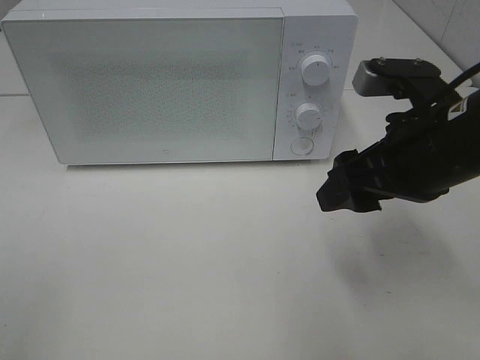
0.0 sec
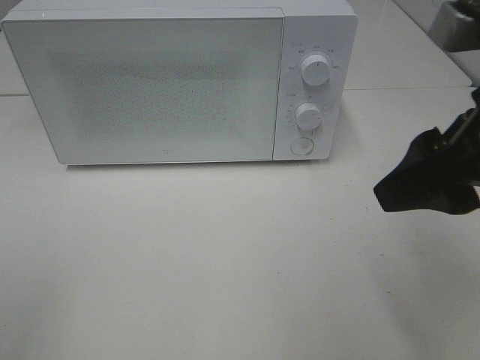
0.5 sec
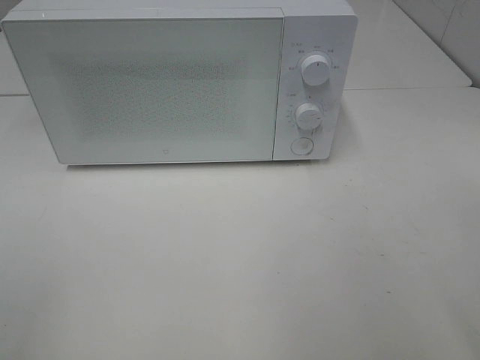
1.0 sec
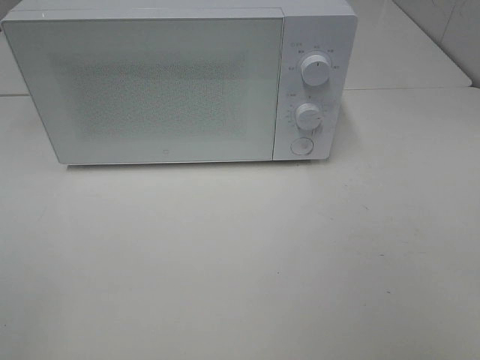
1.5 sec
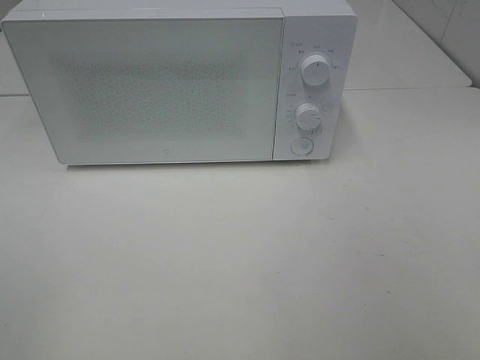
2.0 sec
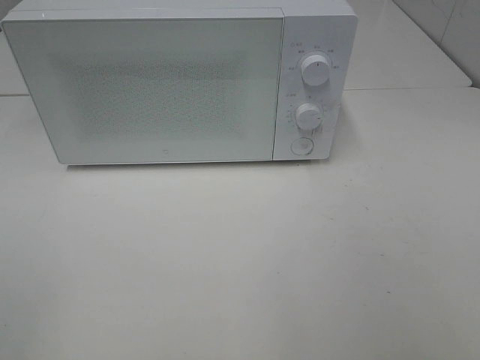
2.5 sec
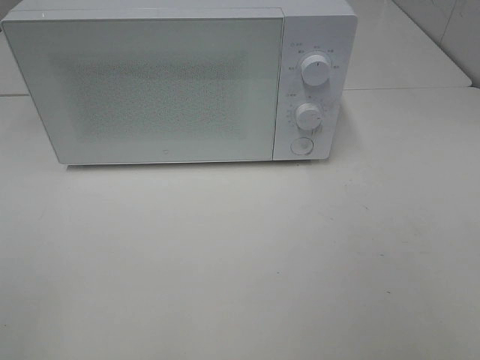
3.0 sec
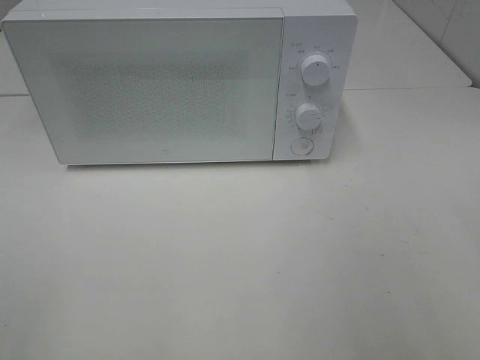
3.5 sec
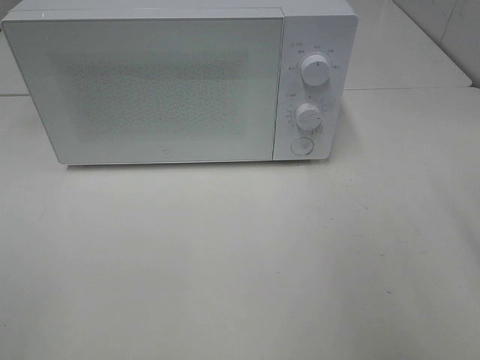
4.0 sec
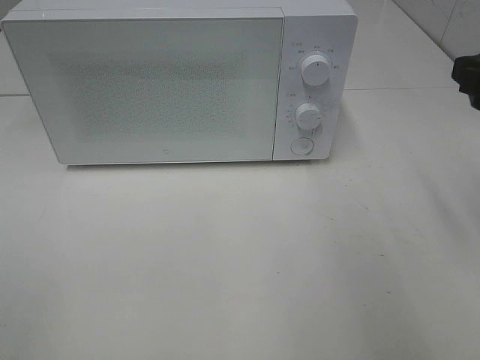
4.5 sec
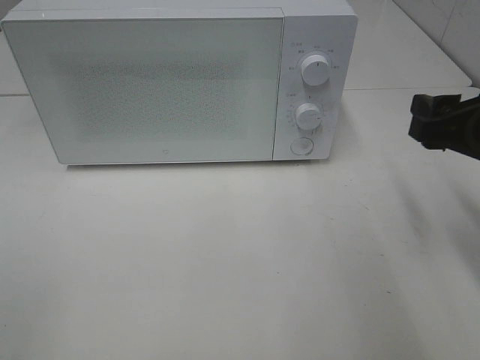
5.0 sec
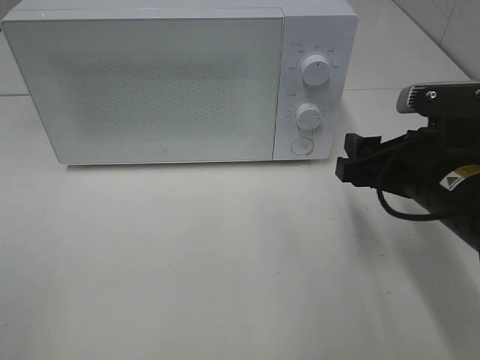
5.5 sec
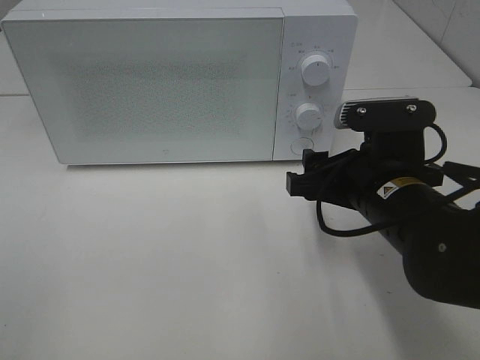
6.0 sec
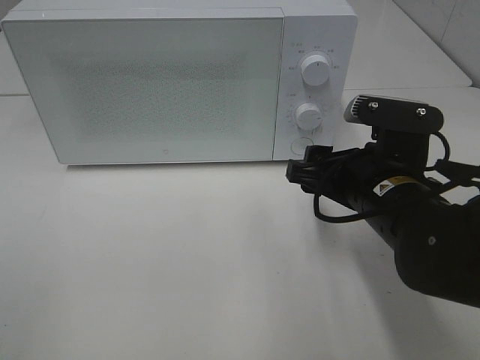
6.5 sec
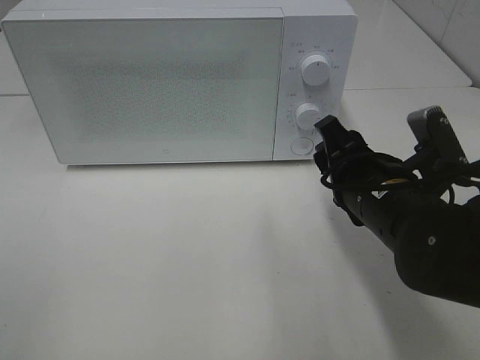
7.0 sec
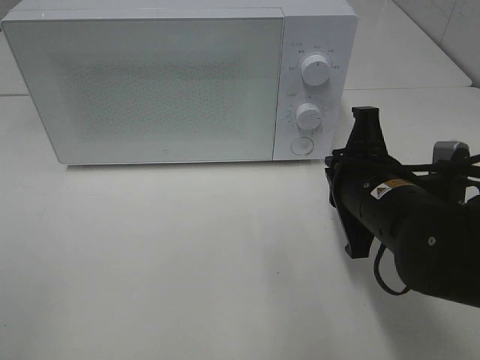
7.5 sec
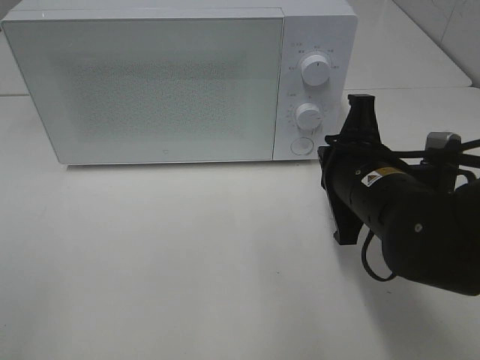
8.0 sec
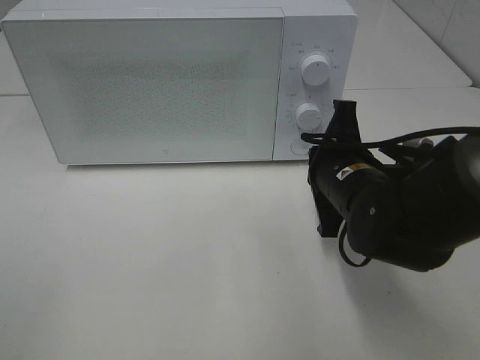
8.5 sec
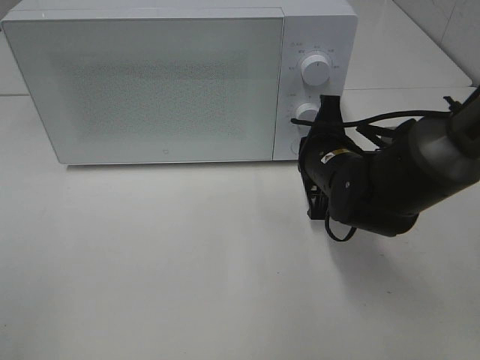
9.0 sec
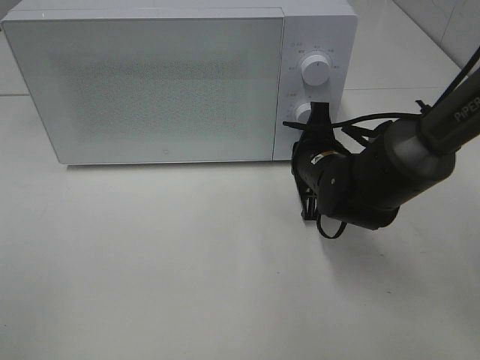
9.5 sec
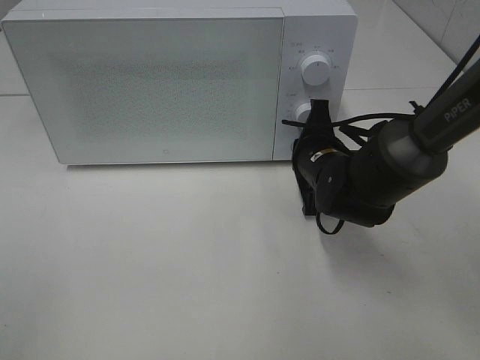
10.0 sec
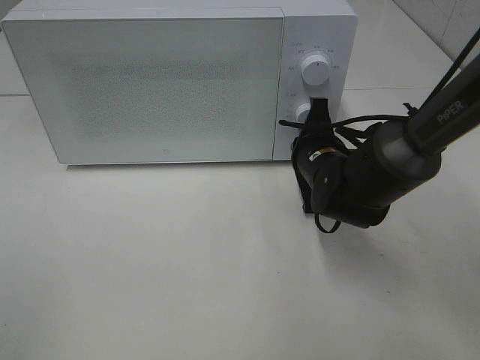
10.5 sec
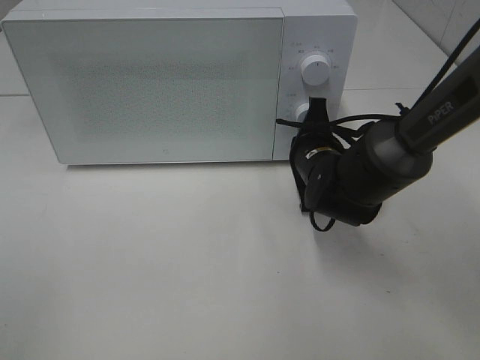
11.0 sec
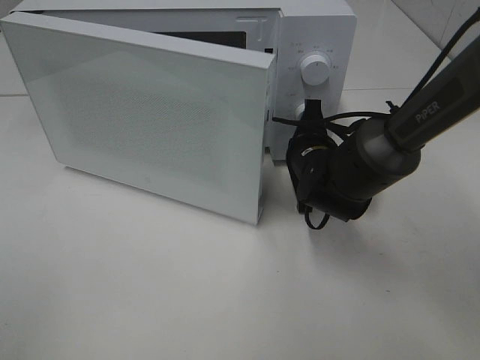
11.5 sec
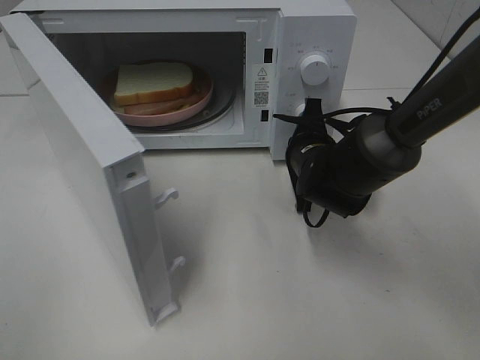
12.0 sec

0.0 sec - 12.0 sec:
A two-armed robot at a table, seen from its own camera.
Task of the whole recording: Heat Sandwich.
0.0 sec - 2.0 sec: The right gripper moves backward and to the right, about 25 cm.
4.0 sec - 6.0 sec: The right gripper goes some 20 cm downward, to the left and forward.
6.0 sec - 8.0 sec: The right gripper closes its fingers.
8.0 sec - 10.0 sec: The right gripper heads forward and downward, covering about 10 cm.

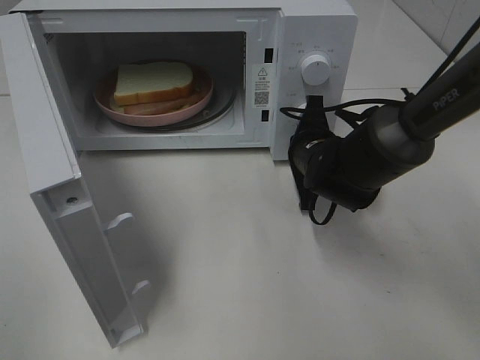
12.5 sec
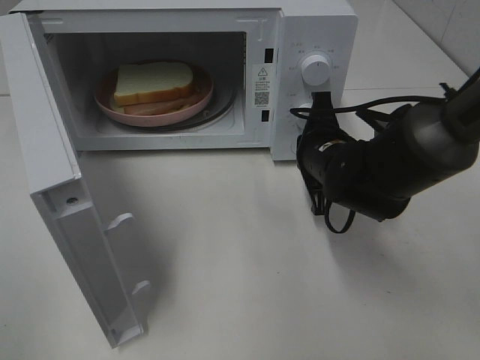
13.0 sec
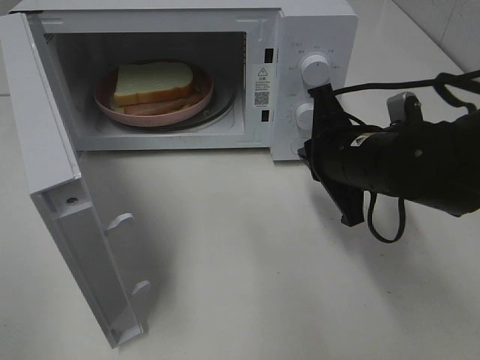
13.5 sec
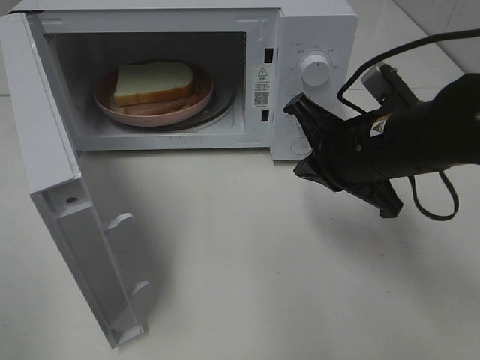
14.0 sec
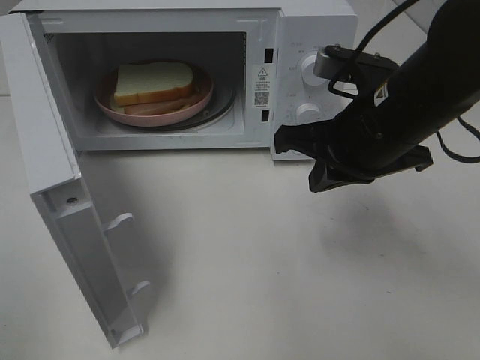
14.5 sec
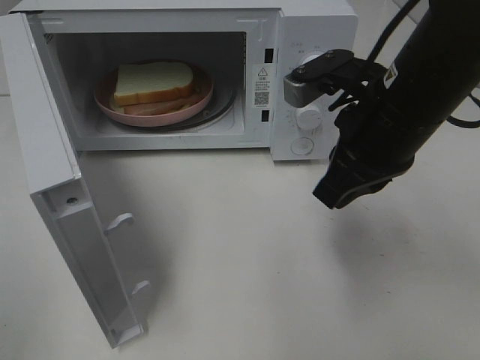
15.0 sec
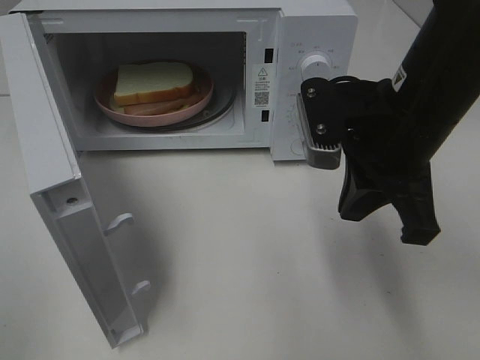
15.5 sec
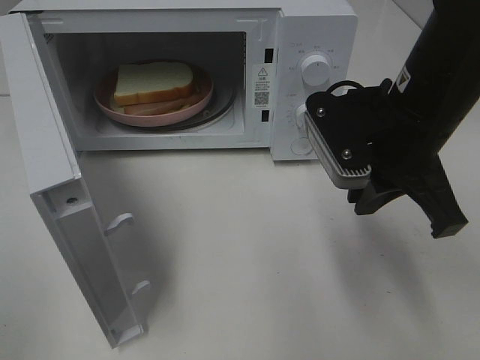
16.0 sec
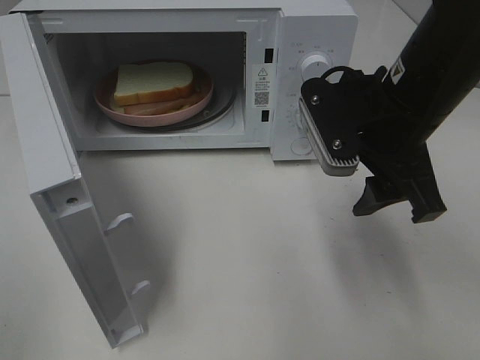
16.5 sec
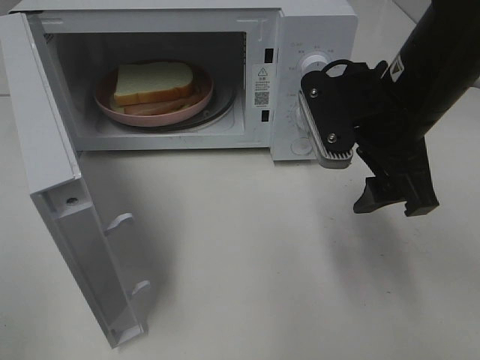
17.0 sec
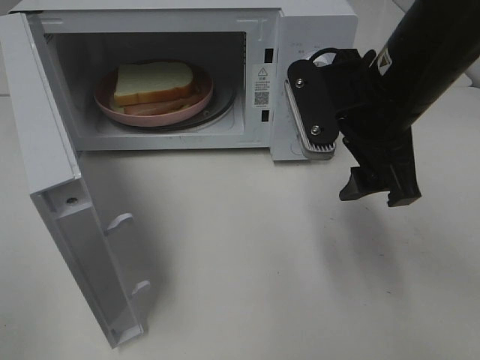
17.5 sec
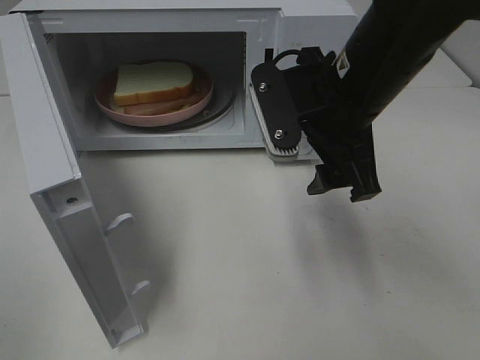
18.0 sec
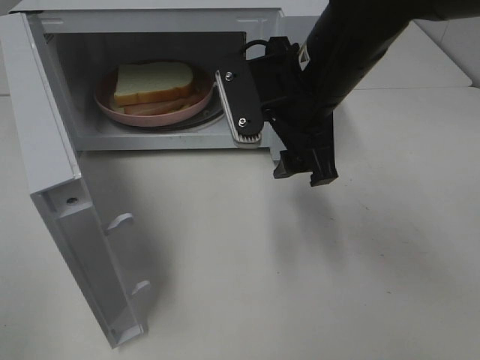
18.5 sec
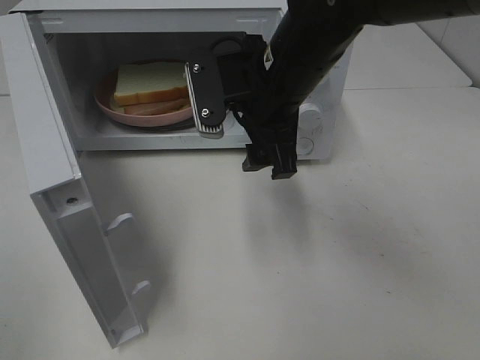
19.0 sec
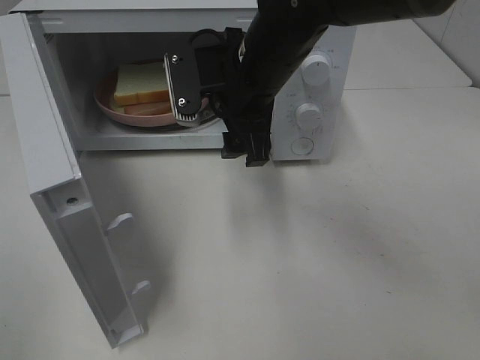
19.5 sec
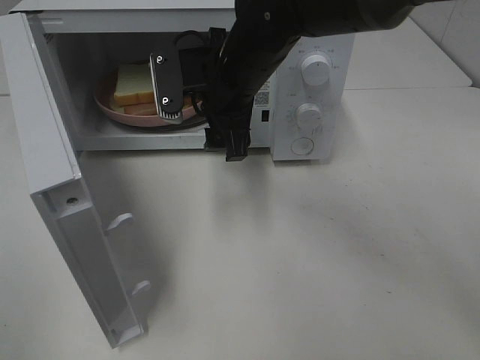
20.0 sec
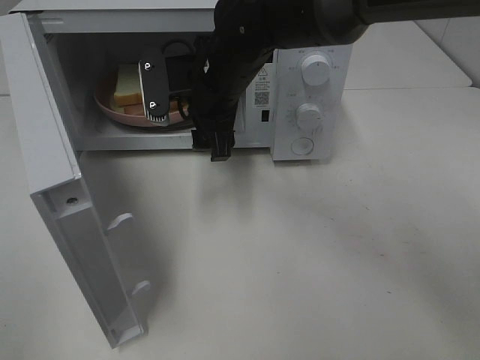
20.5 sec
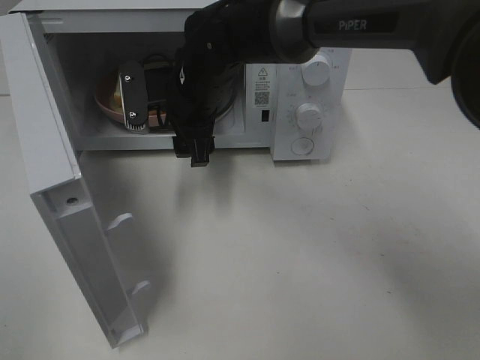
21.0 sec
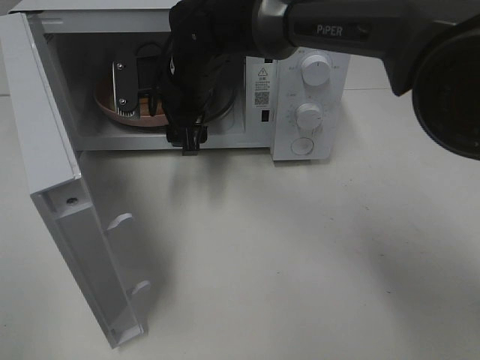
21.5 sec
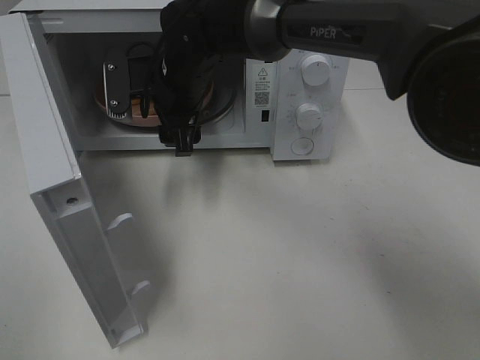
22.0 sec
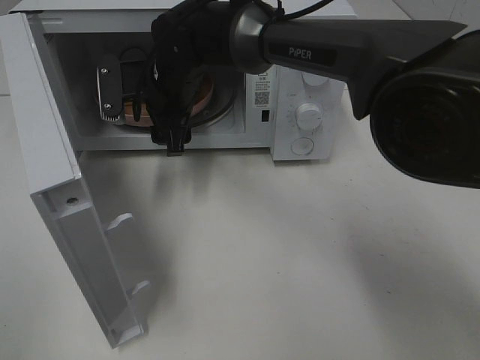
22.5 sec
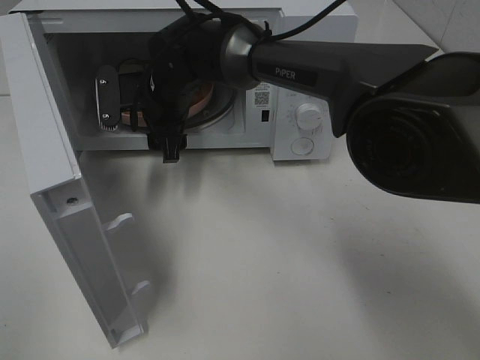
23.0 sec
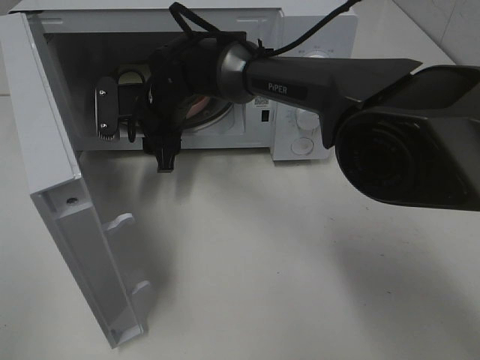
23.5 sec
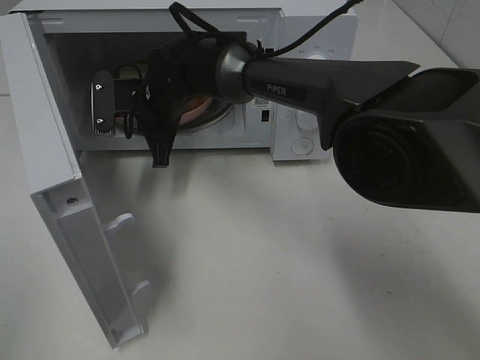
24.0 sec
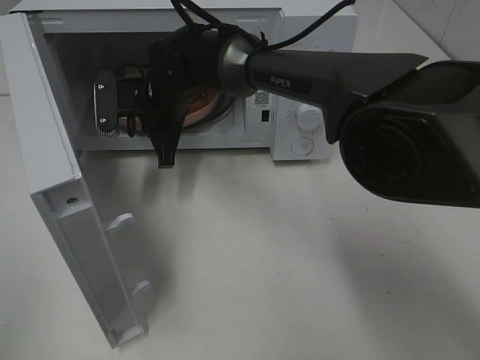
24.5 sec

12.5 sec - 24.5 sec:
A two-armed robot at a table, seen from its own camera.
Task of the whole recording: Heat Sandwich.
Step, 13.5 sec - 23.5 sec: Right hand: grab the plate with the sandwich.
12.5 sec - 14.5 sec: The right gripper shifts approximately 15 cm upward and backward.
14.5 sec - 16.5 sec: The right gripper opens.
16.5 sec - 18.5 sec: The right gripper moves to the left, some 5 cm.
18.5 sec - 20.5 sec: The right gripper heads to the left and forward, covering approximately 10 cm.
20.5 sec - 22.5 sec: The right gripper travels to the left by roughly 5 cm.
22.5 sec - 24.5 sec: The right gripper closes its fingers.

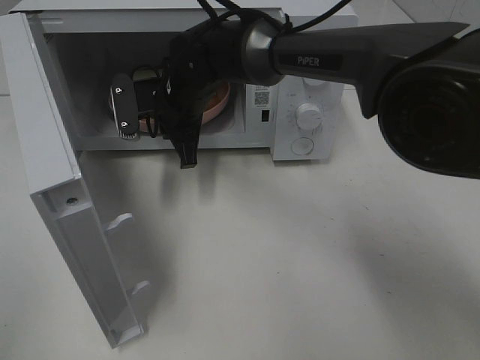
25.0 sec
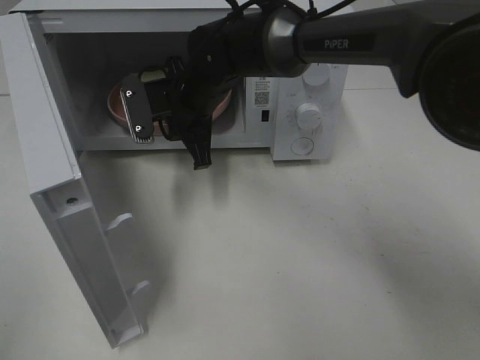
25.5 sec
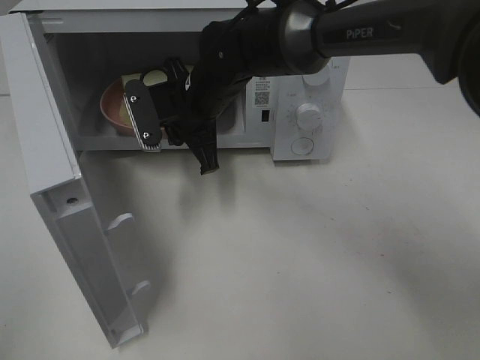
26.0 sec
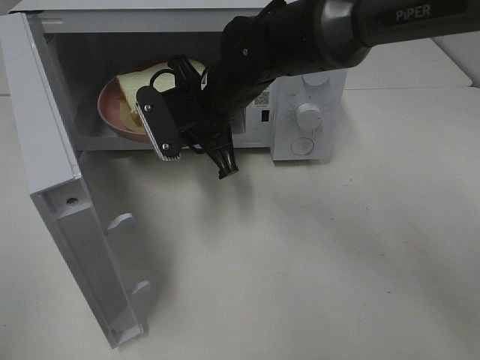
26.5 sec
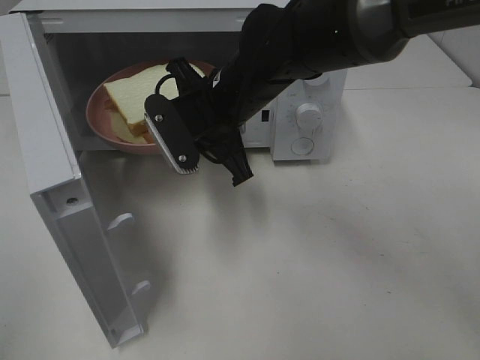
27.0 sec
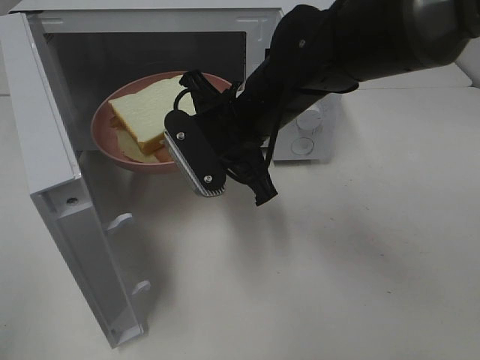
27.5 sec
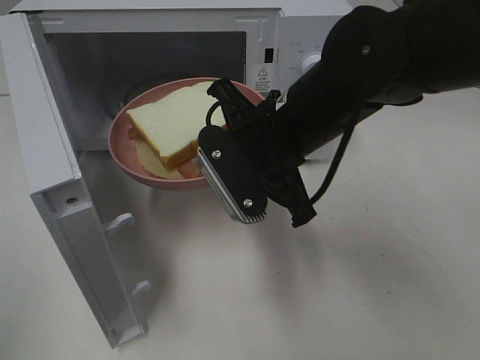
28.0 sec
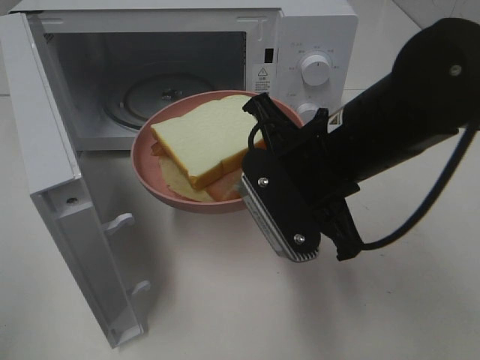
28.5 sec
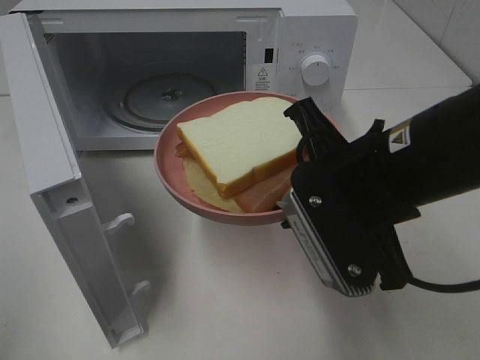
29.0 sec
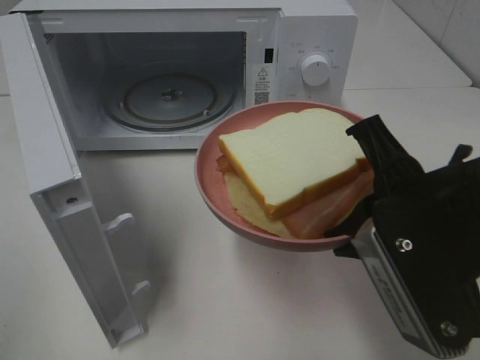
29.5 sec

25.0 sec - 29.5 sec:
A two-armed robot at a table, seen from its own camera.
Task of the whole recording: Heat Sandwich.
25.0 sec - 27.0 sec: The right gripper goes some 10 cm backward and to the right.
27.0 sec - 29.5 sec: The right gripper shifts about 25 cm backward and to the right.
